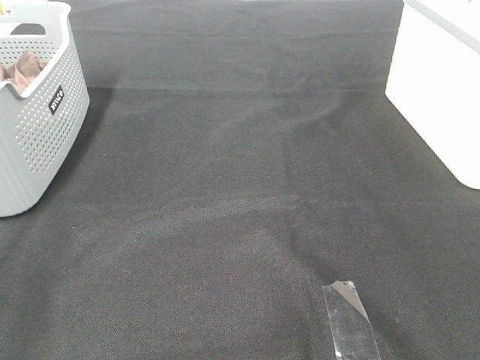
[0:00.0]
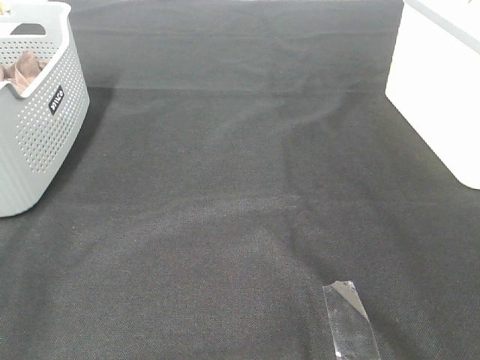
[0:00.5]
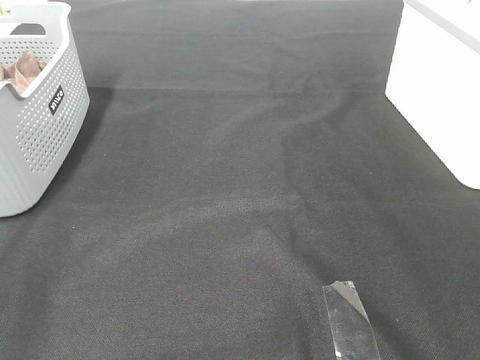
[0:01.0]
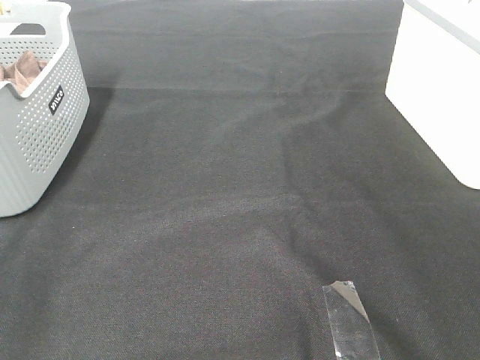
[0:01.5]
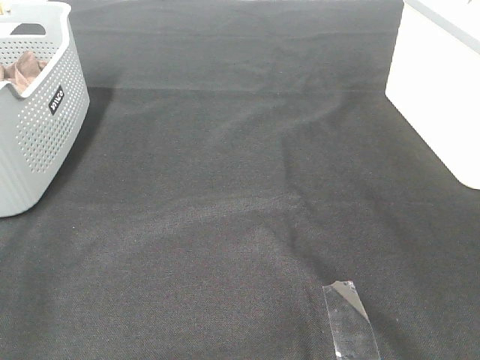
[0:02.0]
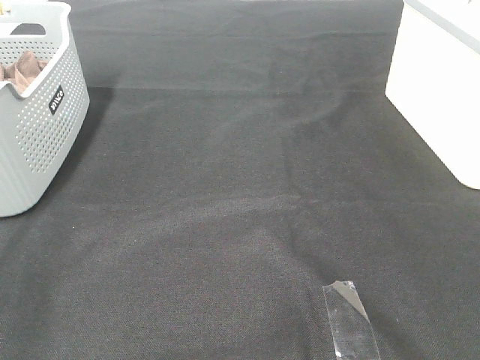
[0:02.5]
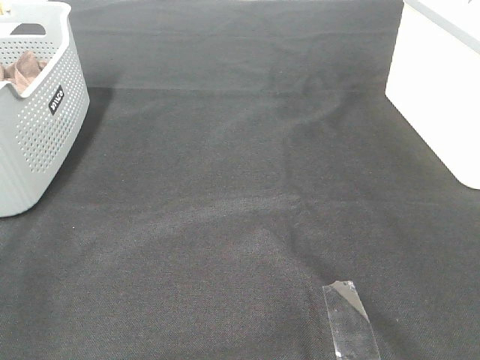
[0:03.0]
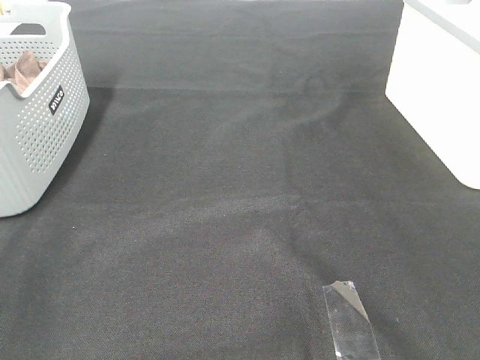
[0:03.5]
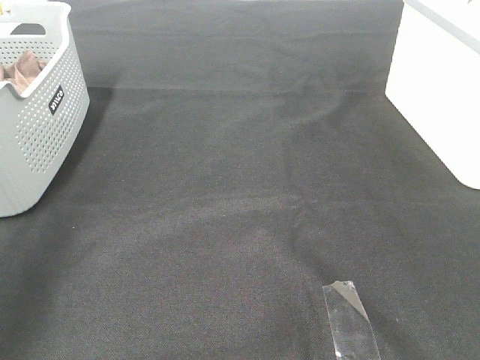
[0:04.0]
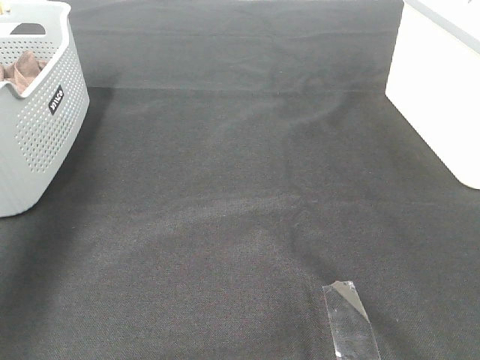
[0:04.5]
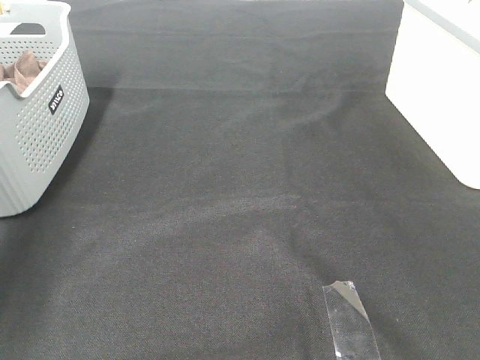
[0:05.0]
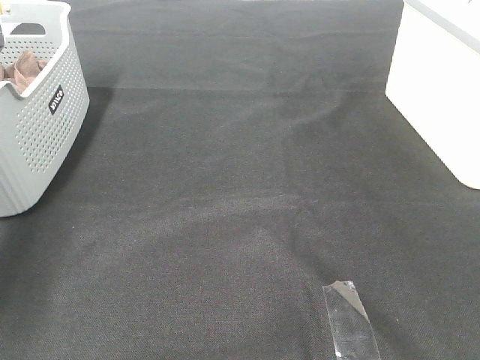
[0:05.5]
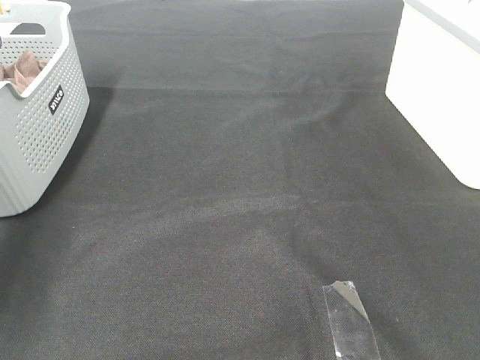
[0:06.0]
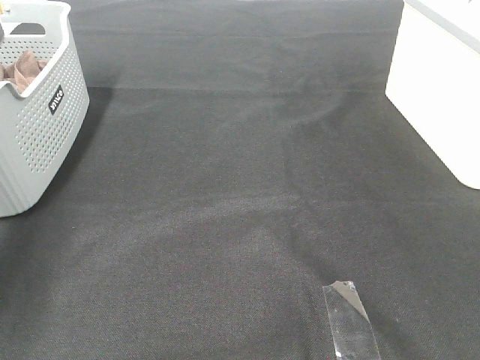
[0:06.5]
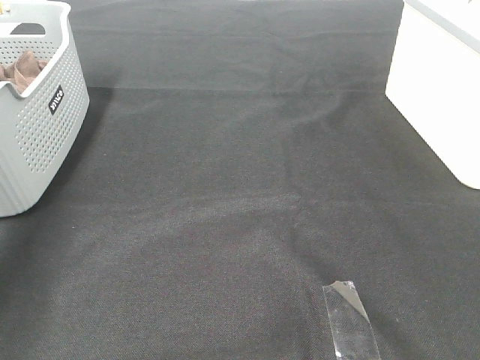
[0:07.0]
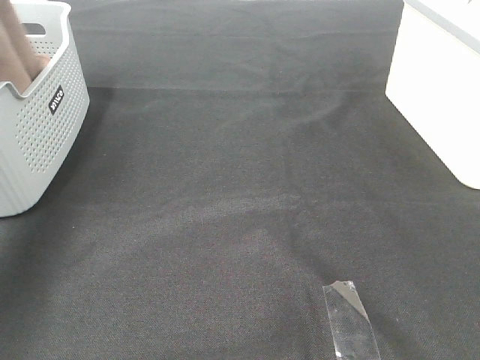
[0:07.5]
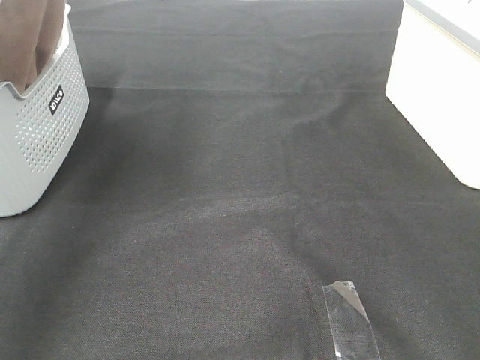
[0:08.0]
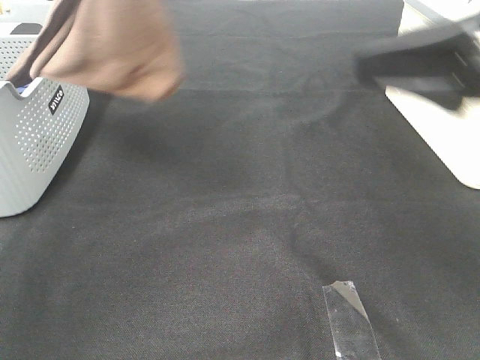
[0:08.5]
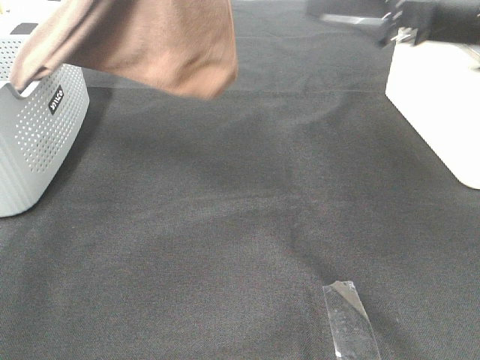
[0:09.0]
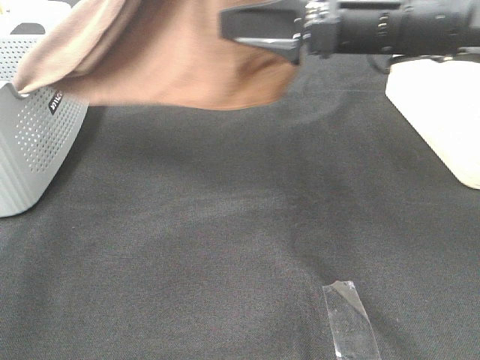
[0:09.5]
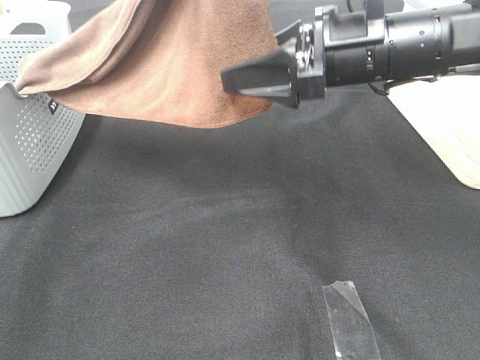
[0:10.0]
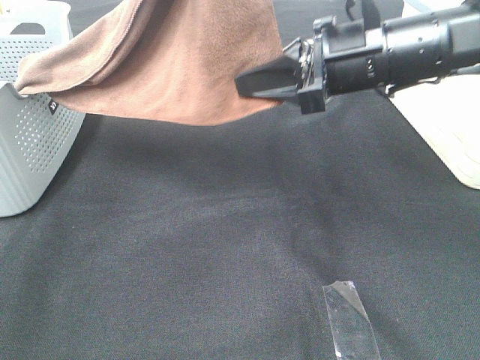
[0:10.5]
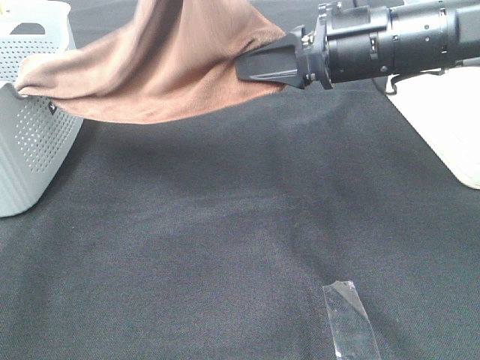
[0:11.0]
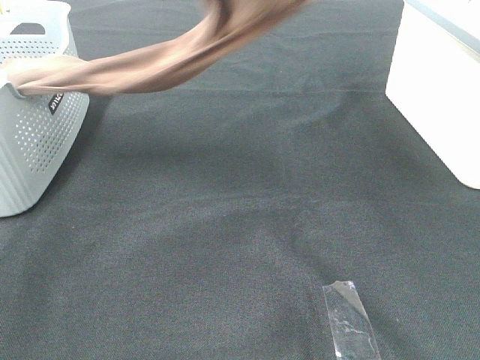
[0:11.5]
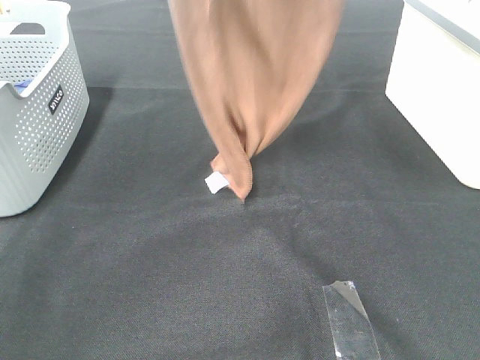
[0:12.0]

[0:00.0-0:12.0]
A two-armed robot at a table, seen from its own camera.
Task of the whole recording: Remove the towel and place it.
Step, 7.5 to 10.5 s: Right hand: grab a corner of the brown towel and straighten it.
0.0 to 2.0 s: Neither gripper changes place.
6.0 to 8.0 s: The left gripper shifts some 30 cm upward, to the right and backward.
8.0 to 10.0 s: The left gripper goes some 10 cm to the right. The right gripper moves forward and to the left, approximately 25 cm.
10.0 to 12.0 s: The right gripper moves upward, about 25 cm, and closes its fingers, while the left gripper moves forward, approximately 5 cm.

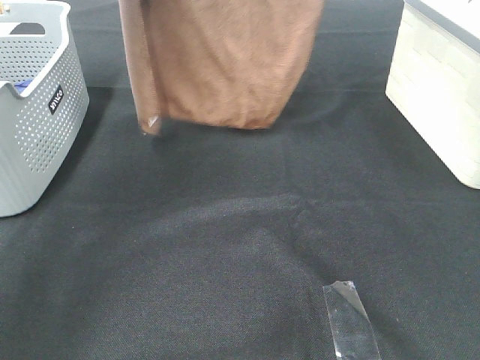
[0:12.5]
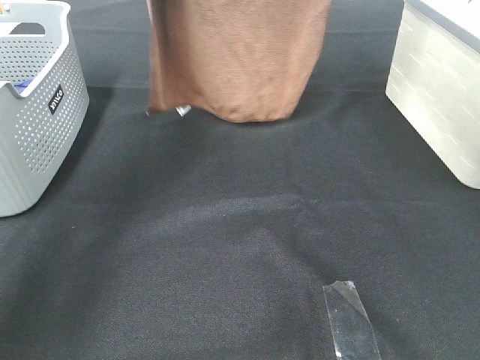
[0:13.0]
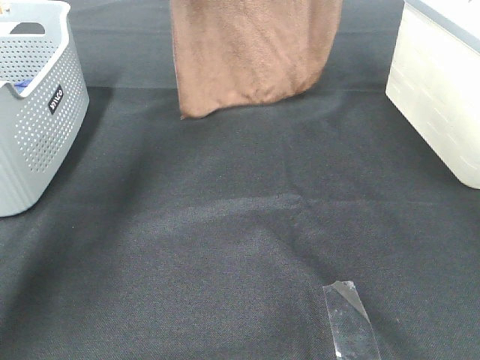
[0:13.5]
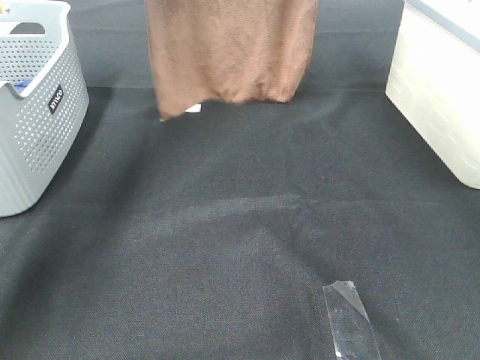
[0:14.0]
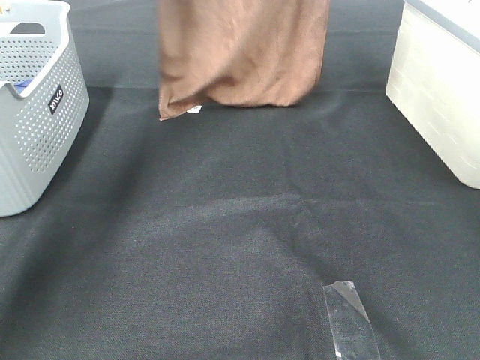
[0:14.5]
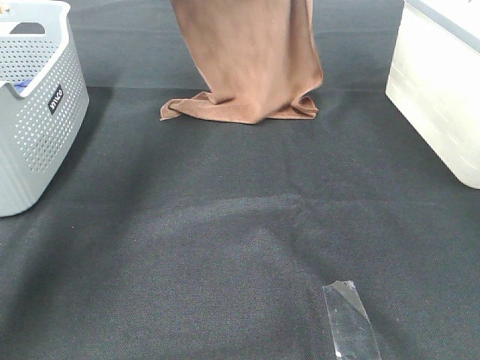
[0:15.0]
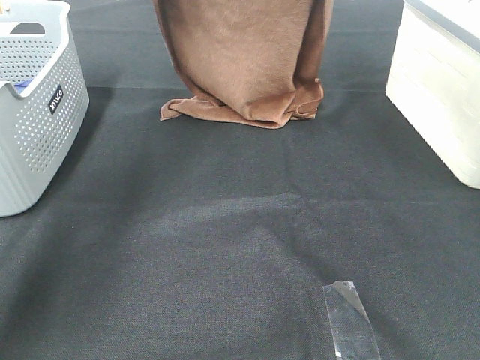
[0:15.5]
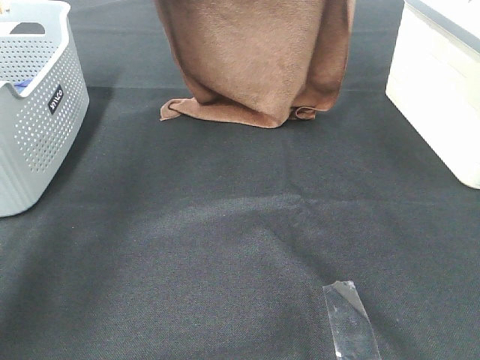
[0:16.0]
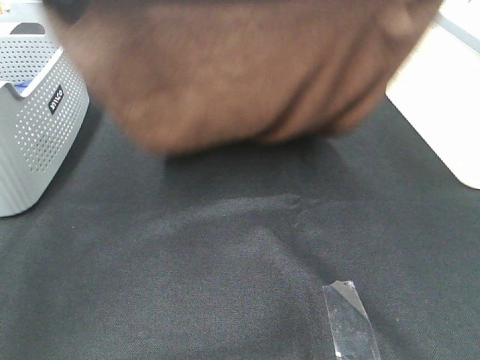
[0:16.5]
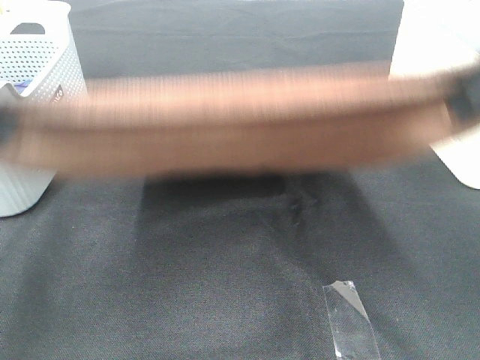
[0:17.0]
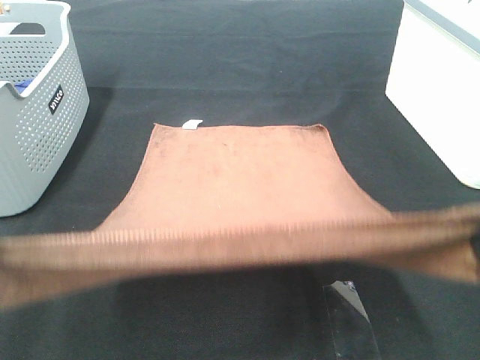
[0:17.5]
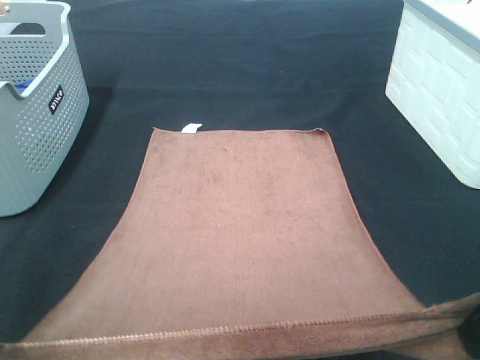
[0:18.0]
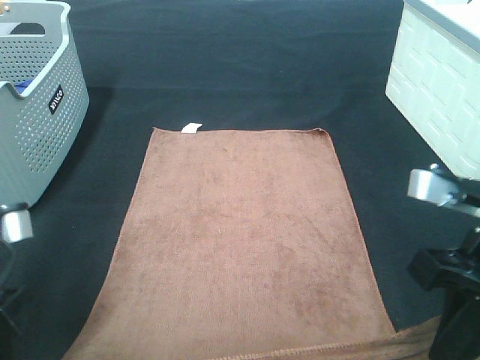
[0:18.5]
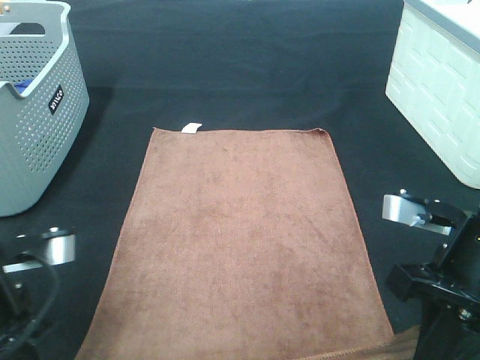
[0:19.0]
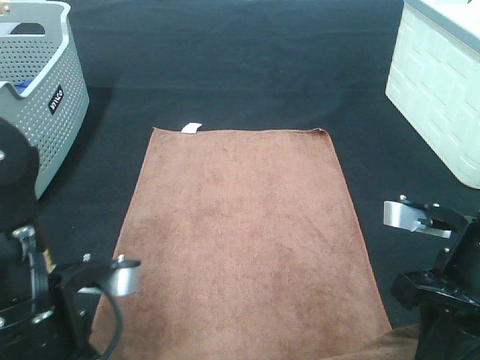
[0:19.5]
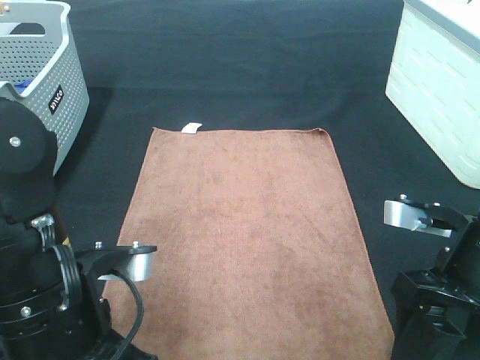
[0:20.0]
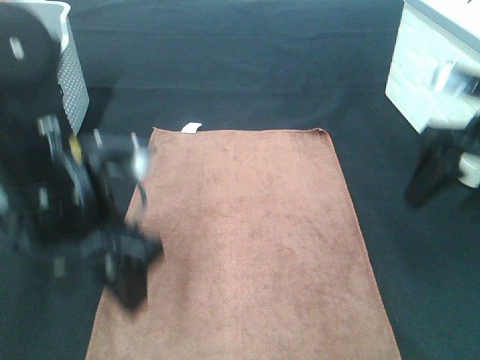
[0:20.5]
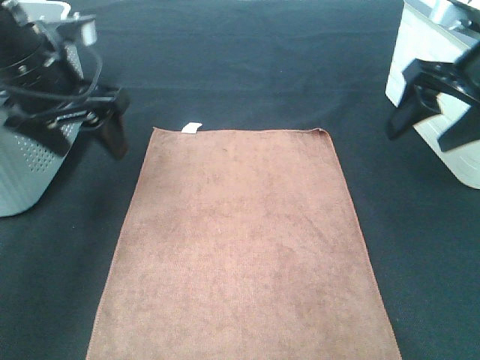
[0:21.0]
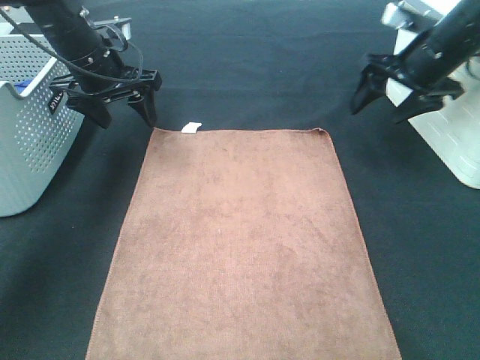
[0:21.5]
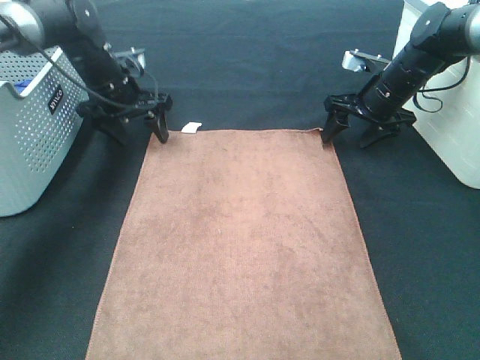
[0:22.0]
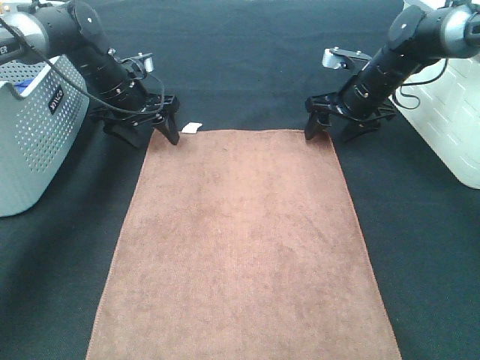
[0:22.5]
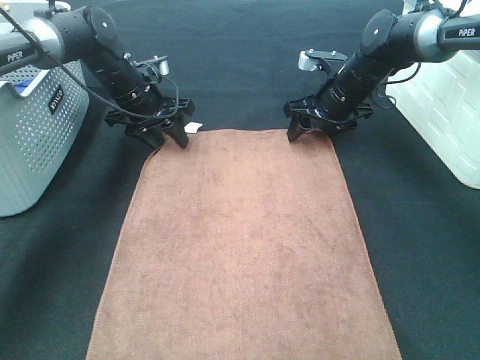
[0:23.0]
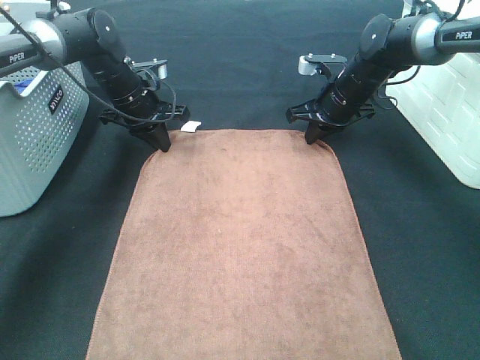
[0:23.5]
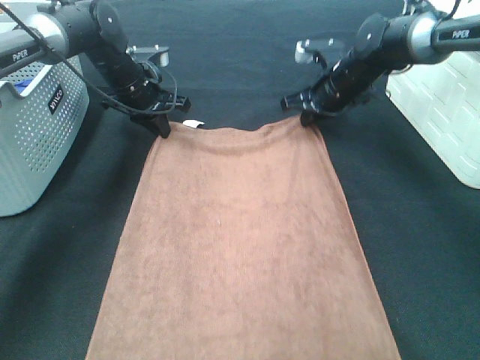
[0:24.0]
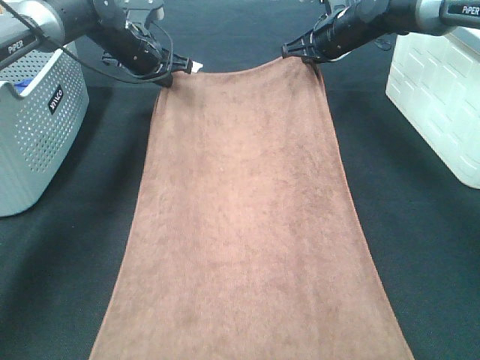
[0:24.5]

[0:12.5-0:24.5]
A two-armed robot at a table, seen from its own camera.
Task of the whole recording: Remove the towel and place it.
Step, 12.5 to 16.0 s: Left hand: spread the brown towel flat on the table.
Step, 12.5 to 16.0 s: Right hand: spread the brown towel flat on the table.
Step, 16.5 to 21.5 s: Left hand:adjust the brown towel.
Step, 16.5 to 21.5 s: Right hand:adjust the brown towel.
12.5 to 14.5 s: Both grippers move forward and downward, approximately 15 cm.
14.5 to 16.5 s: Both grippers travel together backward, approximately 25 cm.
16.5 to 18.5 s: Both grippers move downward and backward, roughly 25 cm.
18.5 to 20.5 s: The right gripper moves forward and to the right, about 15 cm, and opens its fingers, while the left gripper goes some 10 cm to the right and forward, and opens up.
20.5 to 22.5 s: The left gripper goes approximately 30 cm forward. The right gripper moves forward and downward, roughly 25 cm.
22.5 to 24.5 s: The left gripper shifts by some 5 cm, and closes. Meanwhile the right gripper travels upward by approximately 5 cm, and closes up.

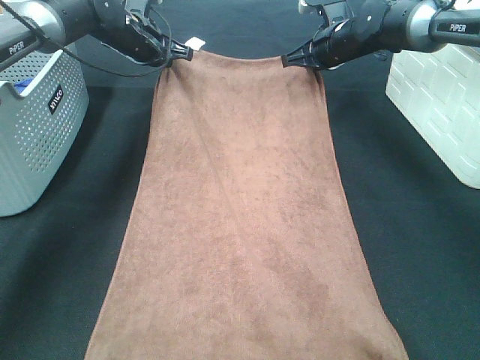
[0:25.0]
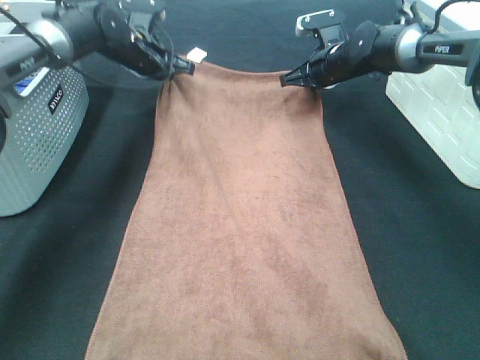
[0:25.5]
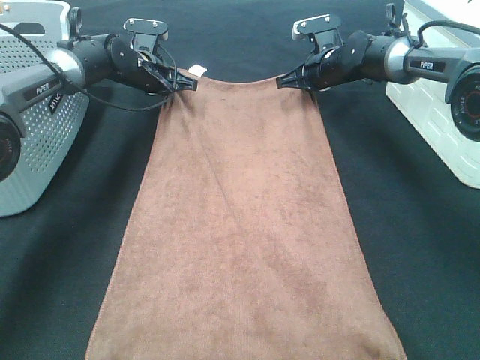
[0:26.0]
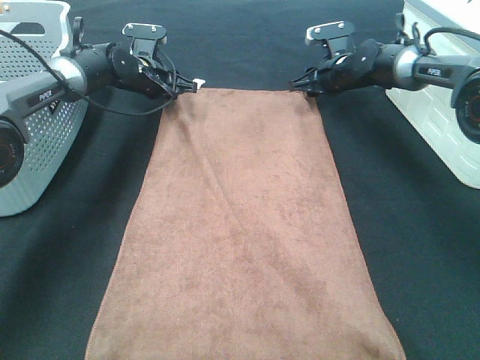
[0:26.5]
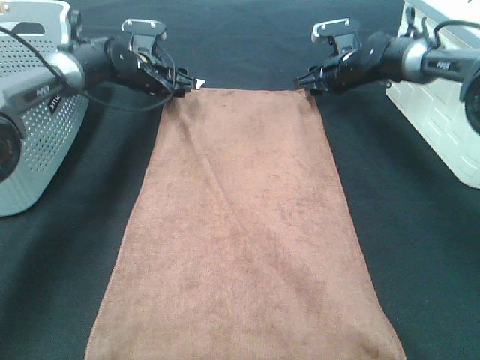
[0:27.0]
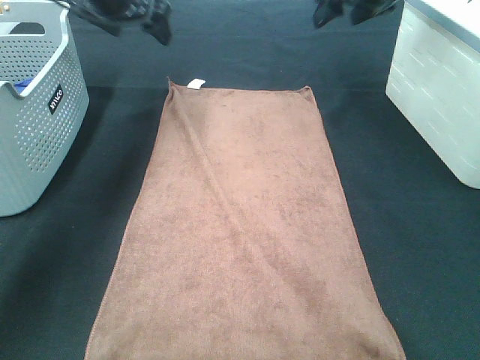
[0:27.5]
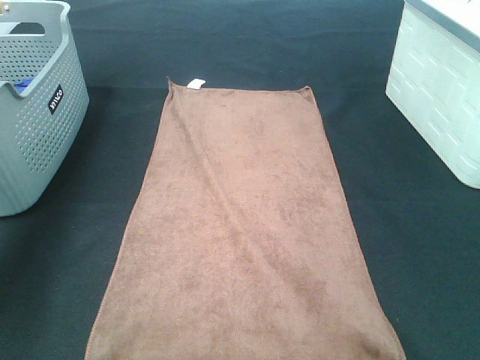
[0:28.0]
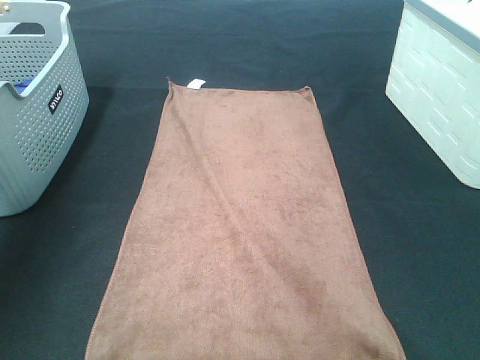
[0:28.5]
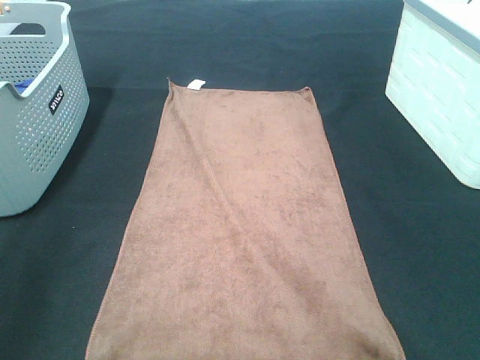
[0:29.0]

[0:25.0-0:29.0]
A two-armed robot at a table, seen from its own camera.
Task of the whole recording: Remove the towel and place it.
25.0 to 27.0 s: Both grippers travel together downward, about 5 cm. The left gripper opens its fingers; the right gripper opens.
27.0 to 29.0 s: The grippers both shift backward and upward by about 60 cm.
